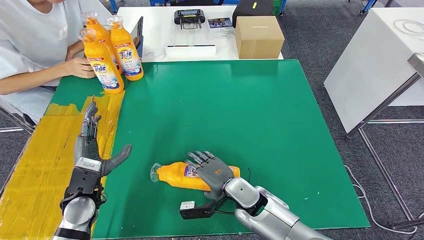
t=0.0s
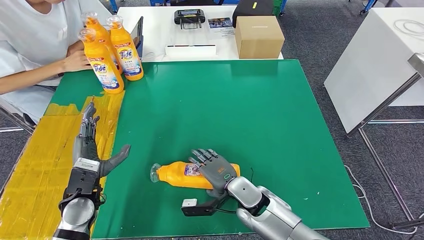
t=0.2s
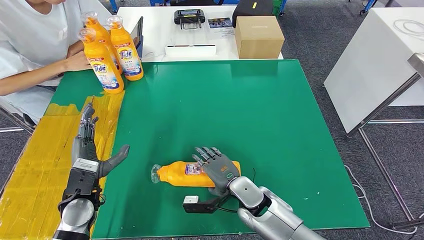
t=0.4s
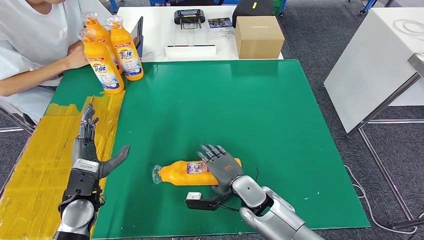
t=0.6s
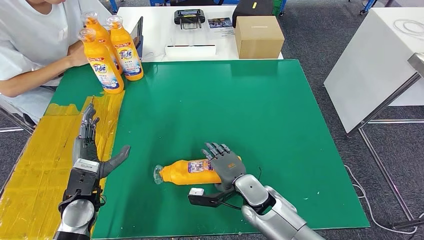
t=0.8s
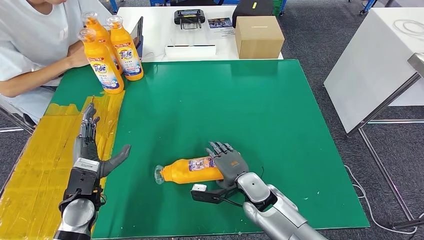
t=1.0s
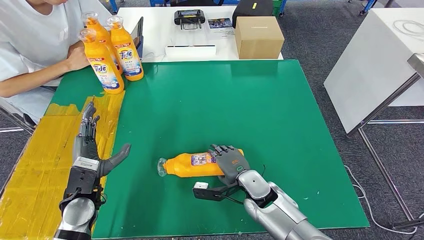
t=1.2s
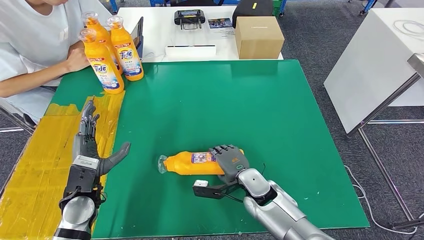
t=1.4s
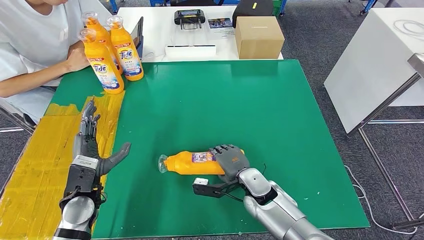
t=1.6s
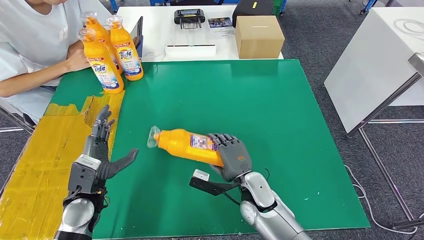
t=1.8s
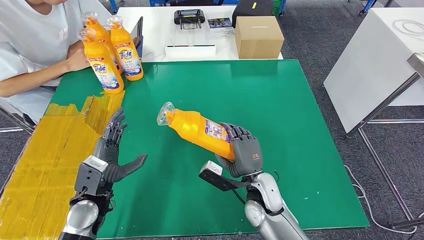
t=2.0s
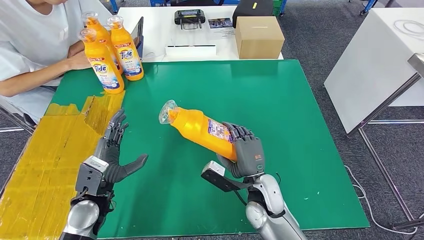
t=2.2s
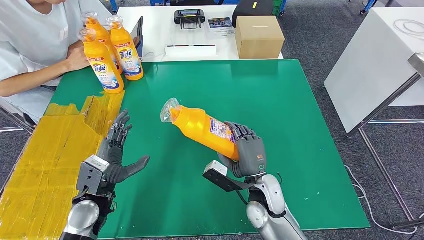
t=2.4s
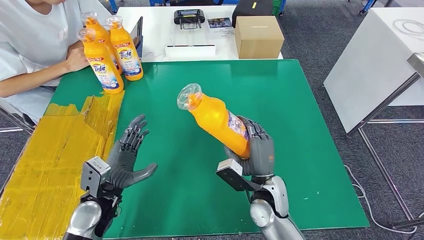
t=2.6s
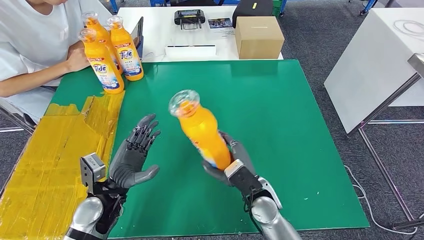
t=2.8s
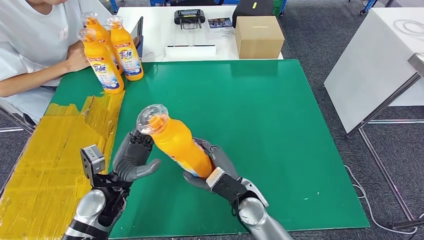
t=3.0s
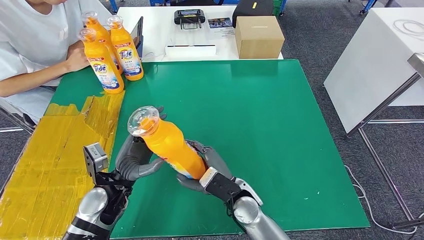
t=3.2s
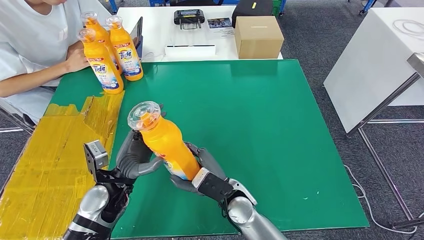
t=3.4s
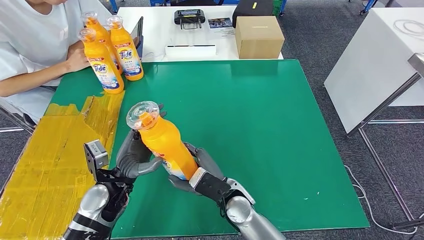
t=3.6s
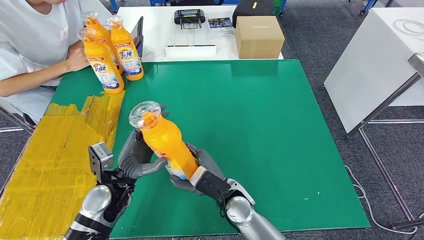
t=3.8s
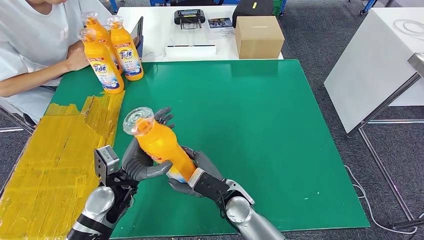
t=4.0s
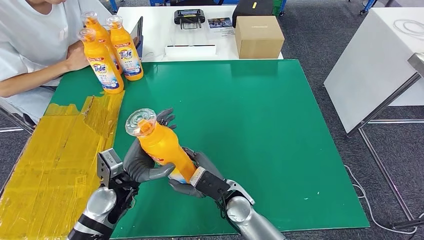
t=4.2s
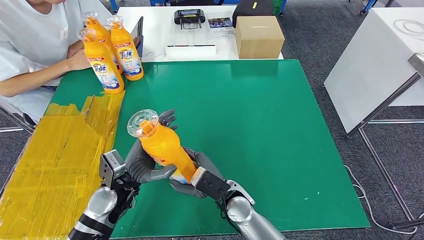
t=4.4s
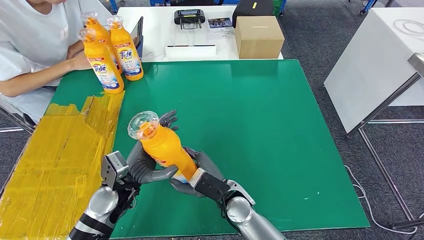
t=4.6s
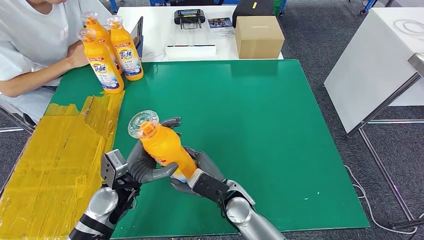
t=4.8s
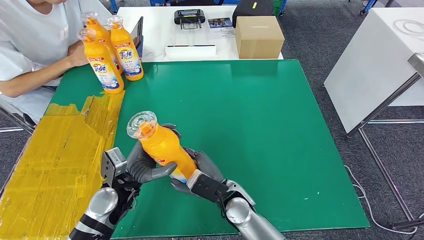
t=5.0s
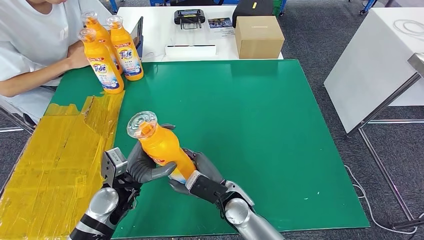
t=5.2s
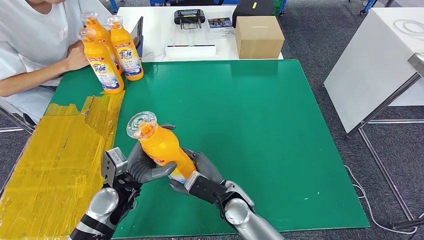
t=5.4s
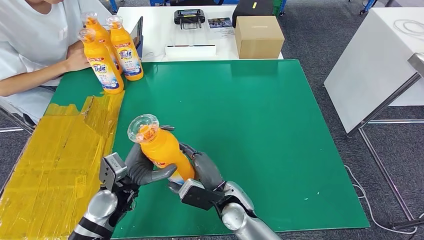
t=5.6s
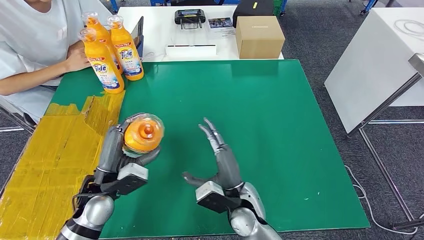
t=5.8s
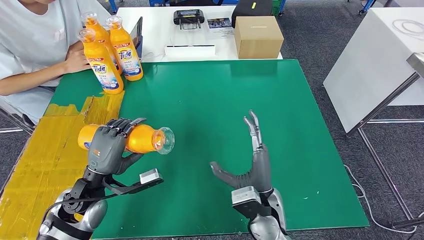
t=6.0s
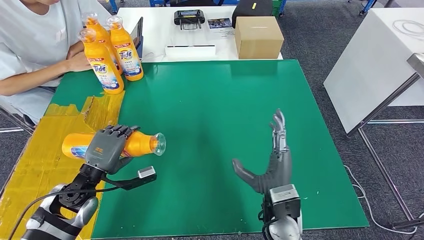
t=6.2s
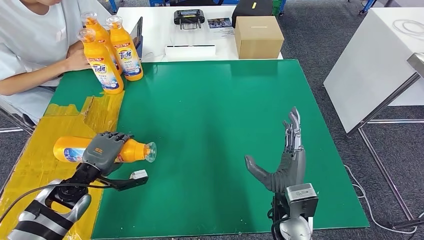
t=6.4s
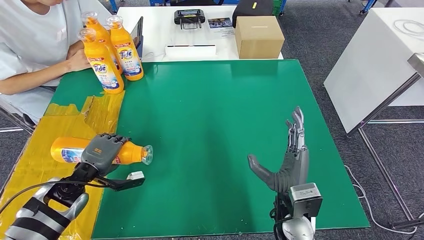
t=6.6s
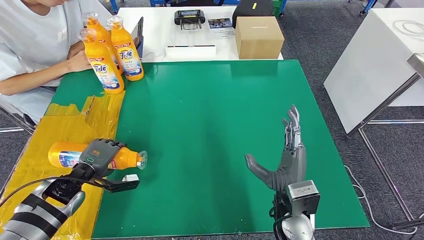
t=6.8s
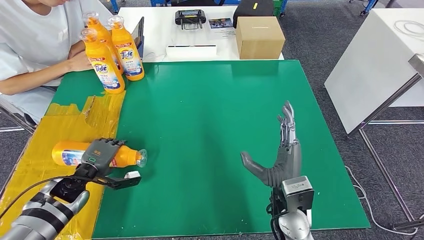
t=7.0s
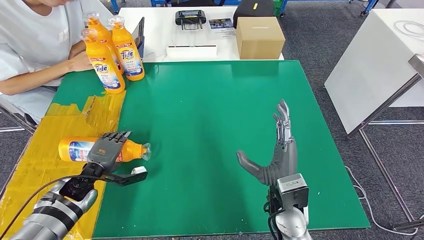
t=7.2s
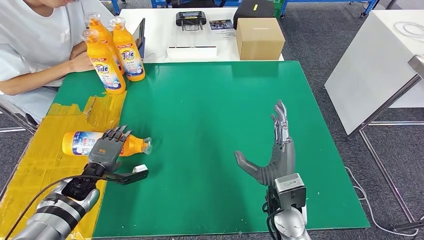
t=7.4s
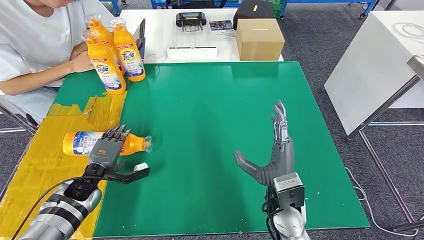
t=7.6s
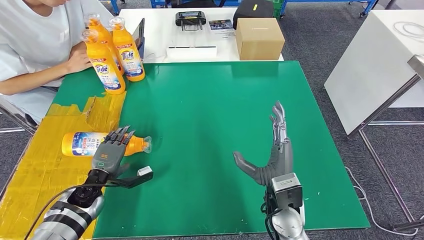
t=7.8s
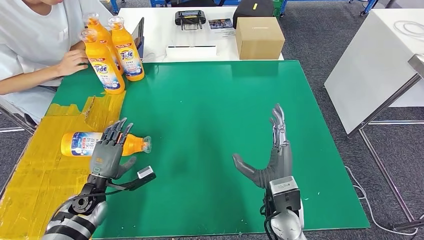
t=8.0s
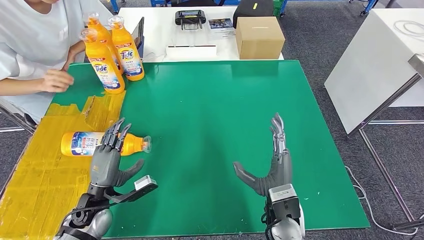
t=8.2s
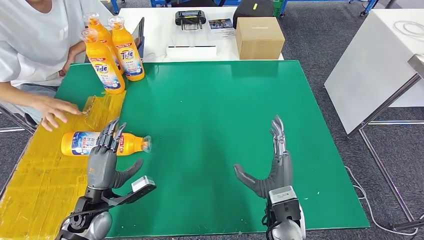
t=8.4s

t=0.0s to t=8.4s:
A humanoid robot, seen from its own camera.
Step, t=0.0s to t=3.0s: Pick up the fast-moving consumer goods bottle from the table.
Step, t=3.2s to t=8.4s: Flip the fast-moving consumer goods bottle to the front side.
t=0.0s to t=1.4s: The hands stay close to where they were, moving slightly.
t=1.4s to t=2.8s: The right hand shifts by about 5 cm, while the left hand shifts some 5 cm to the right.
t=2.8s to t=4.2s: The right hand is displaced to the left by approximately 5 cm.
t=4.2s to t=5.6s: There are only small adjustments of the hands.
t=7.0s to t=8.4s: The left hand heads backward and to the right, covering about 10 cm.
